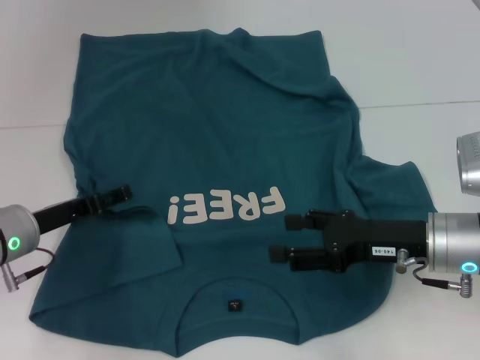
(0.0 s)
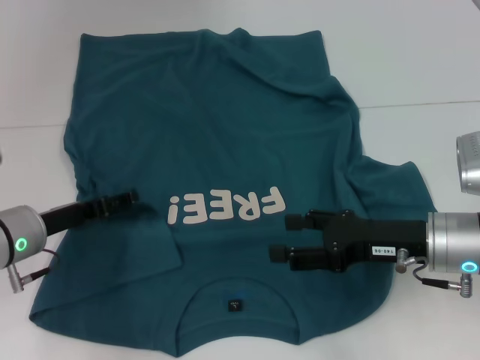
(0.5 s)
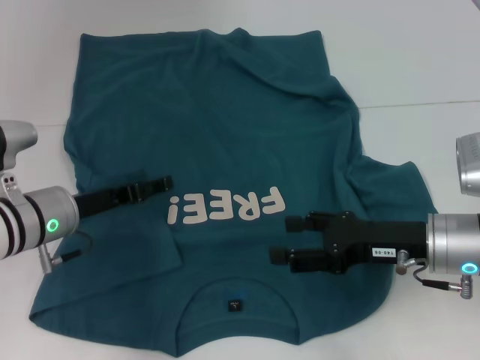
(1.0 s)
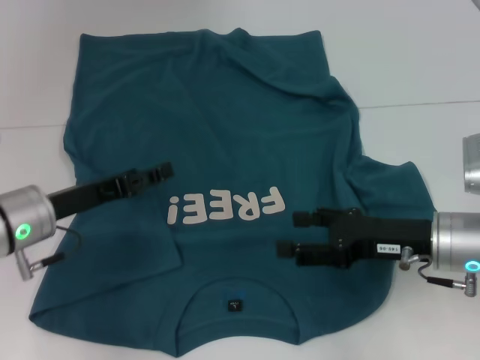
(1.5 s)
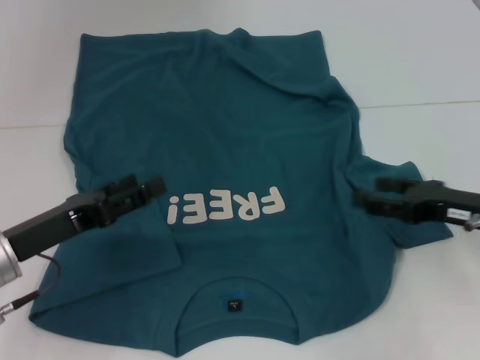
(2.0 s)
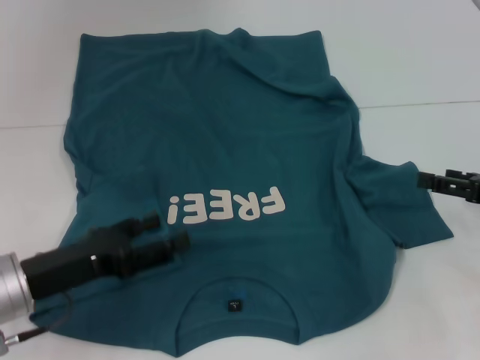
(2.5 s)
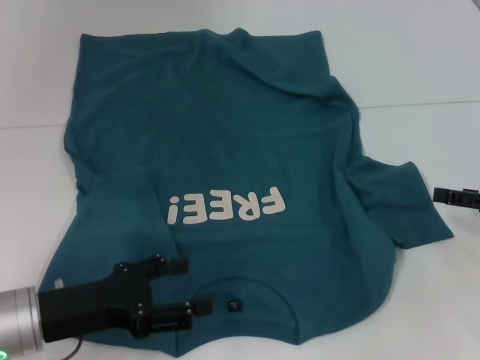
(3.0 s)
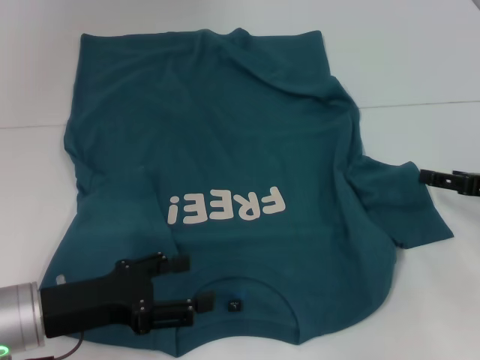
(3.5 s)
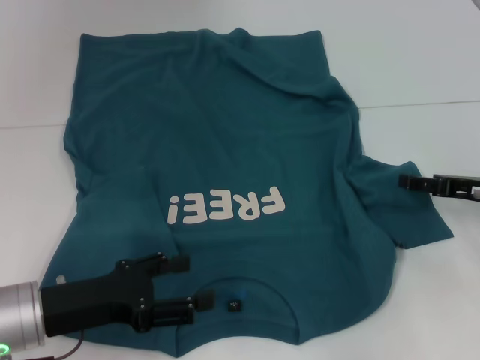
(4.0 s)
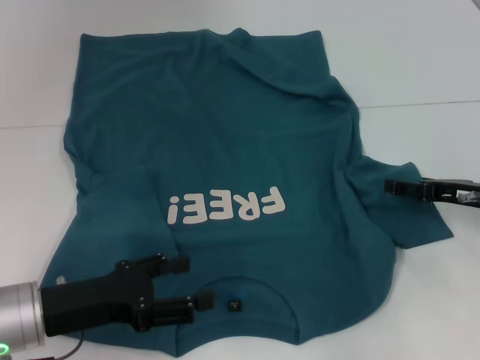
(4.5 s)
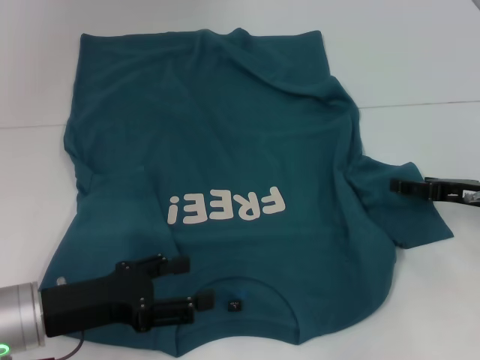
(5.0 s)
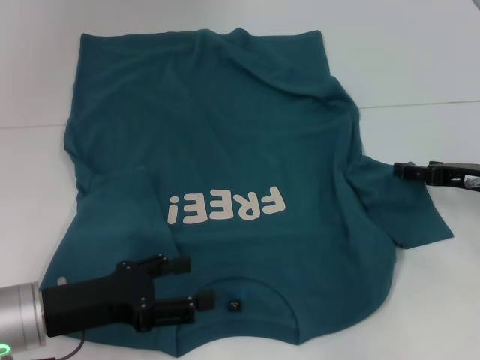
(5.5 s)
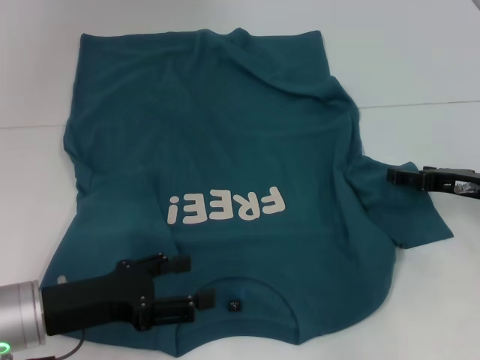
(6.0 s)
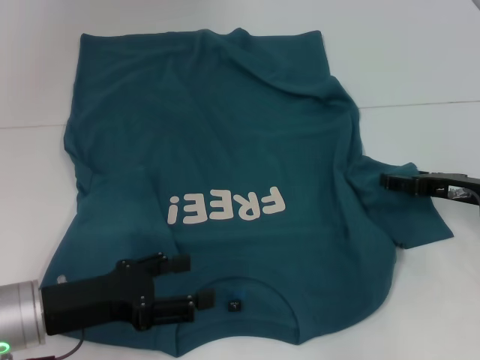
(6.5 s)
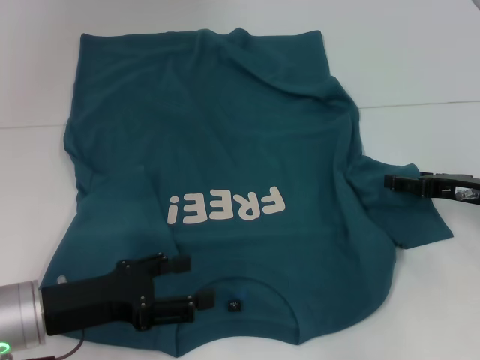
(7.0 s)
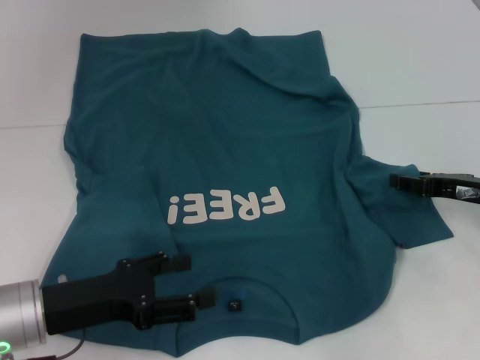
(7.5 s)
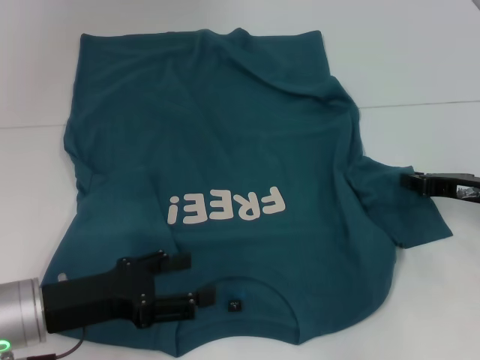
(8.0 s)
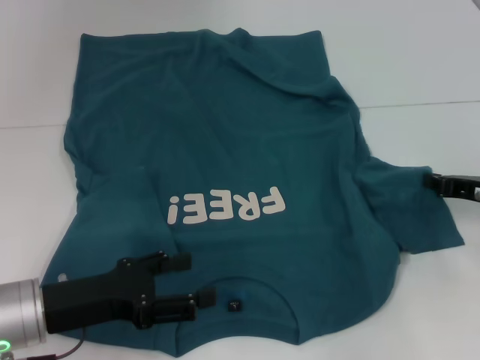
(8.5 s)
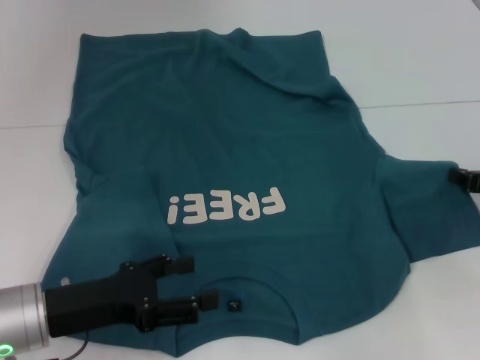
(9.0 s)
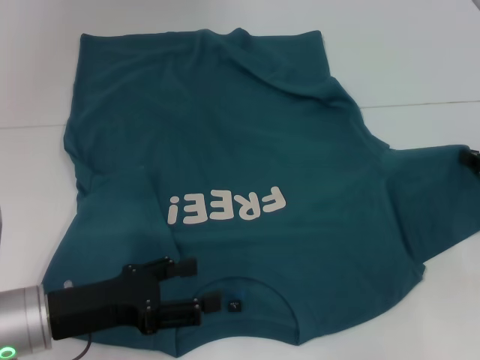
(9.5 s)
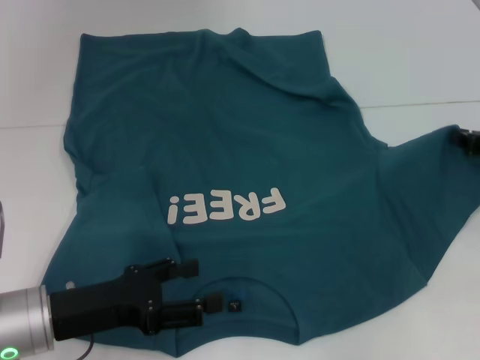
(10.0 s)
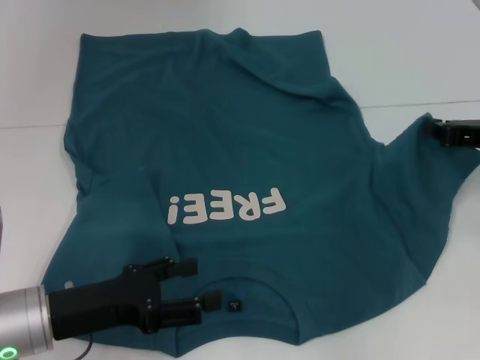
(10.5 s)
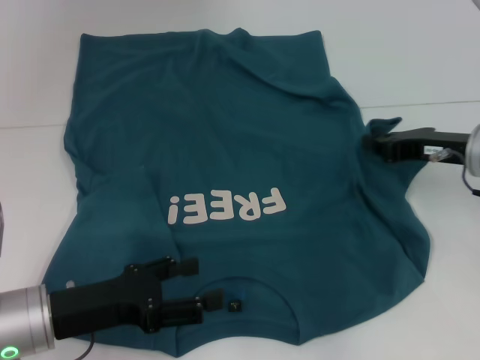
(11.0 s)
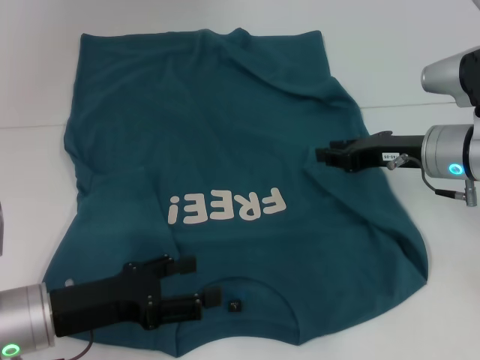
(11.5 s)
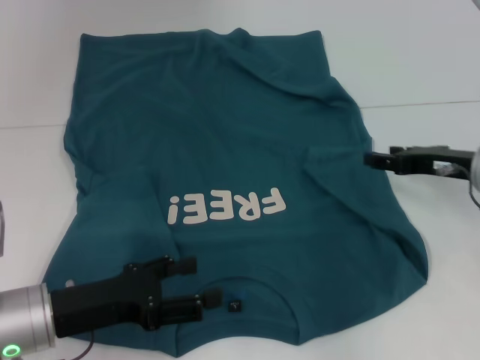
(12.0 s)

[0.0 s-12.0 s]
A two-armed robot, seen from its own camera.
0.0 to 2.0 s: The left gripper is displaced backward by about 5 cm. Meanwhile the right gripper goes approximately 10 cm to the right.
4.0 to 6.0 s: The grippers move only a little.
6.0 to 8.0 s: The right gripper closes its fingers.
8.0 to 10.0 s: The right gripper ends up approximately 5 cm from where it was.
10.0 to 12.0 s: The right gripper moves to the left, some 5 cm, and opens.

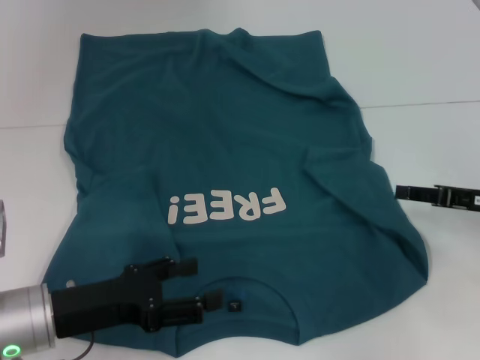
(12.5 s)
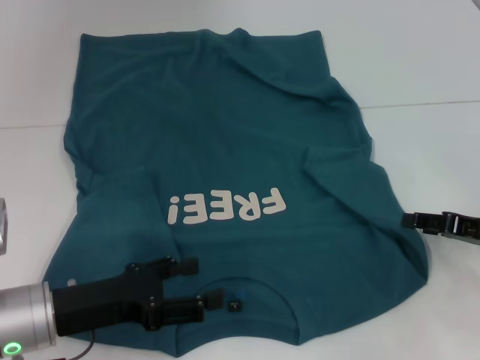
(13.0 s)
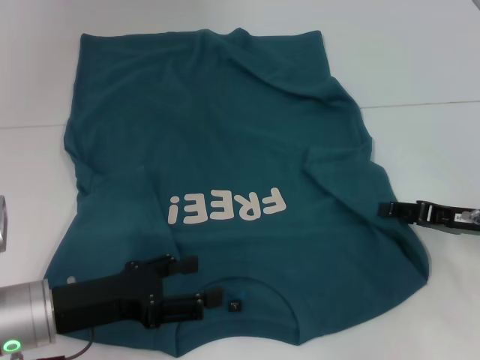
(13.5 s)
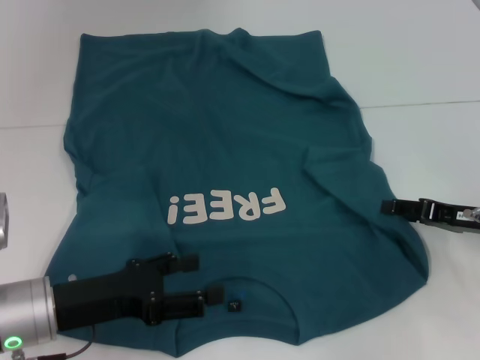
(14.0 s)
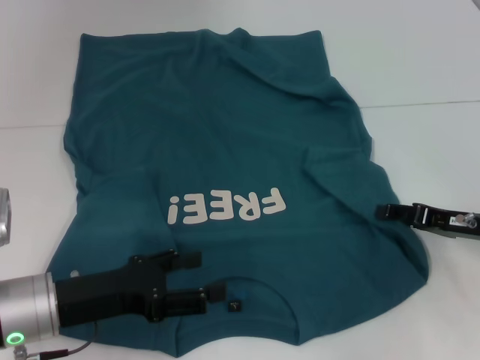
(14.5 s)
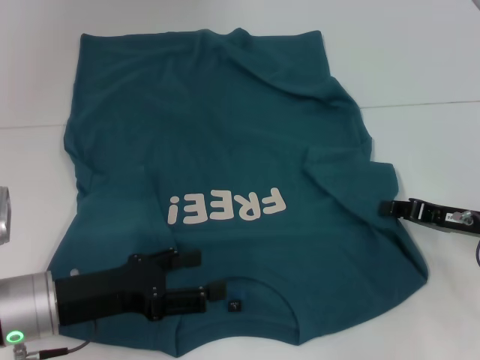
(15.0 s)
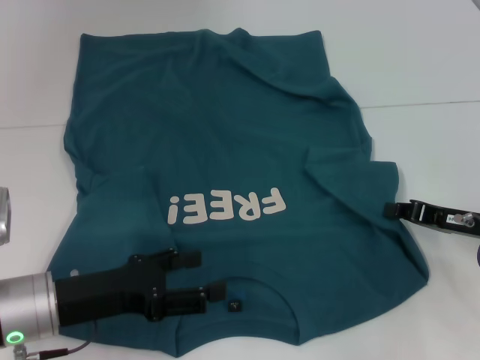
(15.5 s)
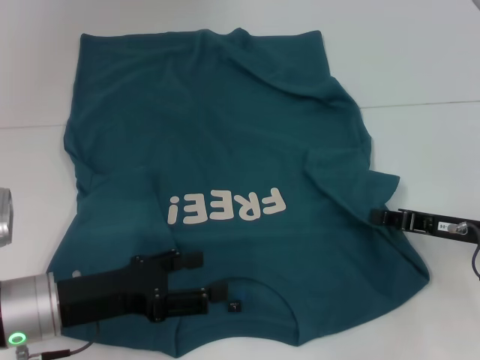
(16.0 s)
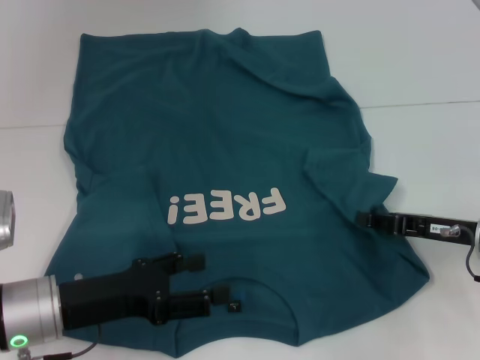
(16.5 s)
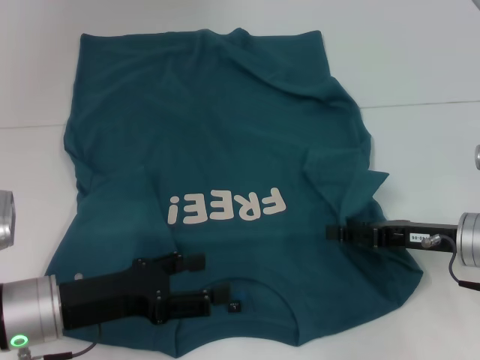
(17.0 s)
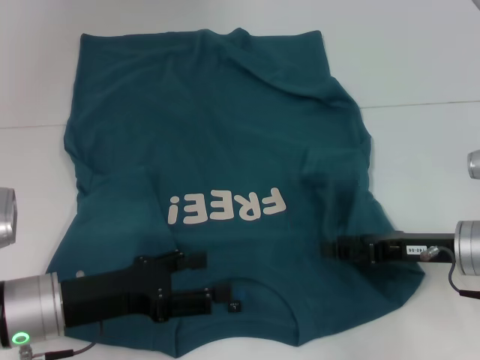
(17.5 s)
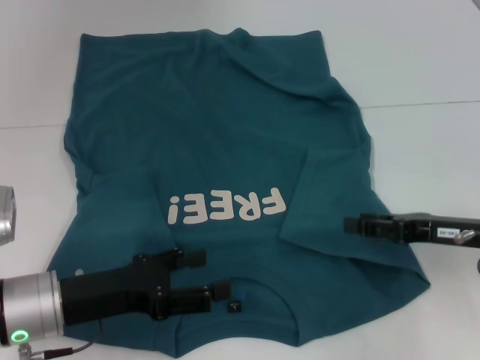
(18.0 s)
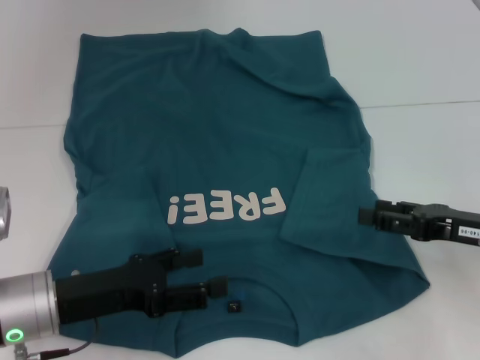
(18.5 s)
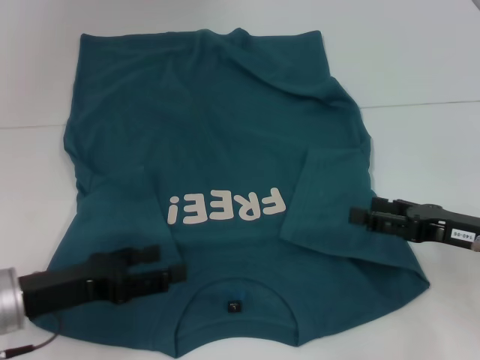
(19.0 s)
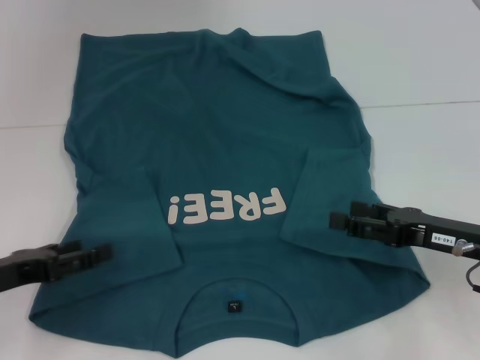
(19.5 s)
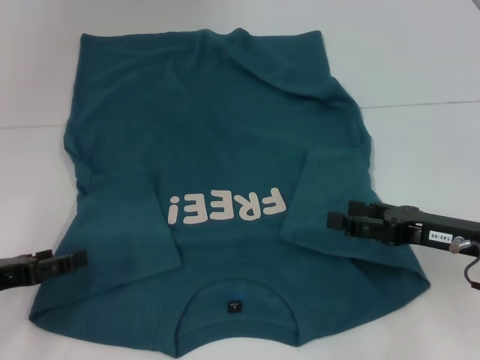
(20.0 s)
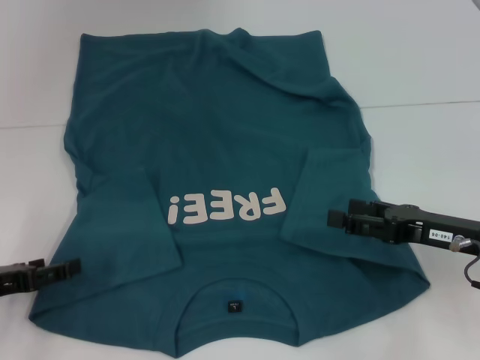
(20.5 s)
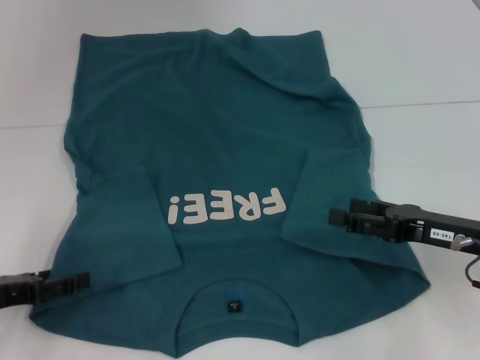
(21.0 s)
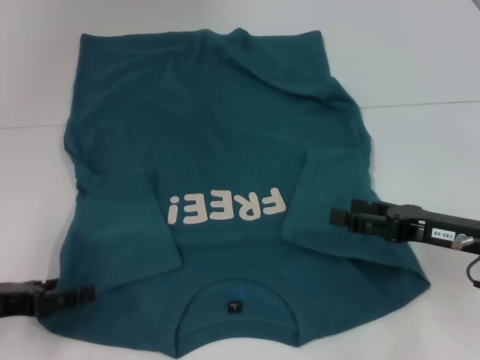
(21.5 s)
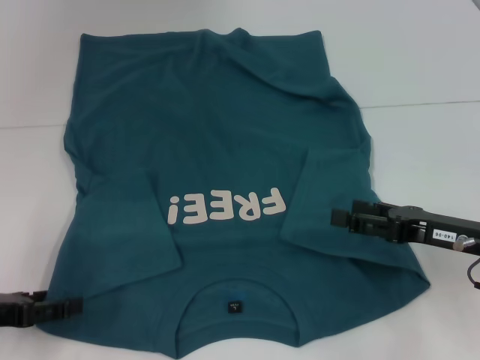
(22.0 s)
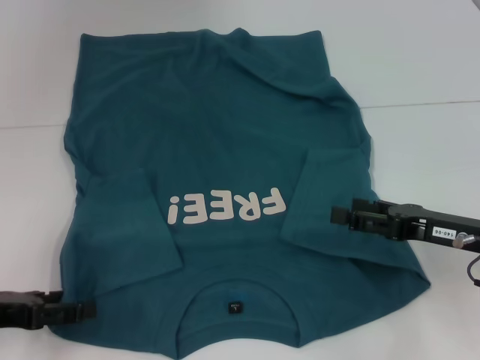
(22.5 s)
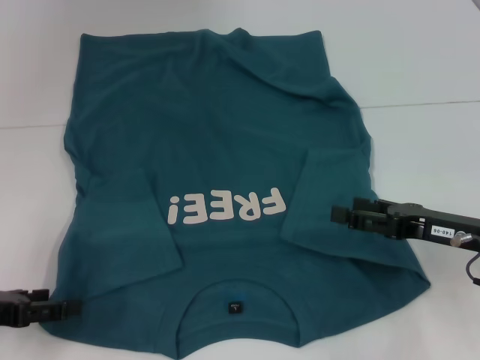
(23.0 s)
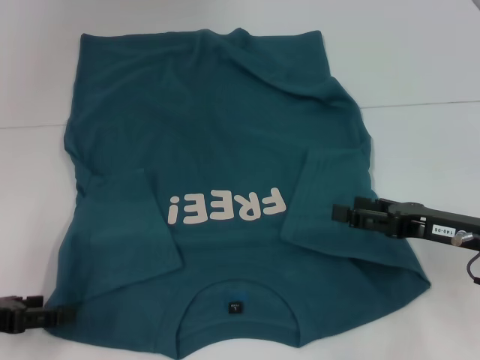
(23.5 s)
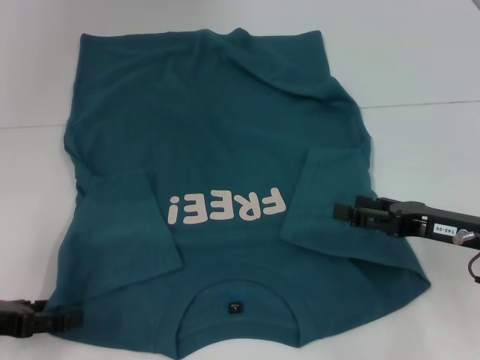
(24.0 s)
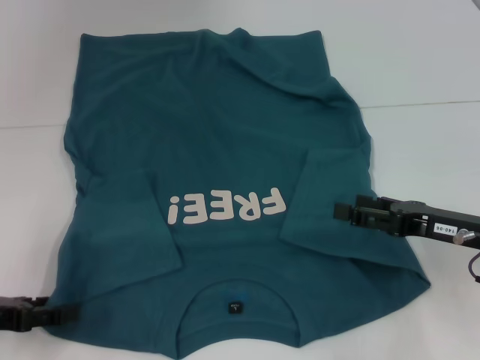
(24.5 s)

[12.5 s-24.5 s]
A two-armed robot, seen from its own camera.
Step, 12.5 to 18.5 s: Fold the bottom right sleeve to the right.
12.5 to 14.5 s: The grippers move only a little.
14.5 to 16.5 s: The right gripper closes.
16.5 to 18.5 s: The right gripper opens its fingers.
18.5 to 20.5 s: The left gripper travels to the left by roughly 10 cm.
20.5 to 24.5 s: The grippers stay close to where they were, moving slightly.

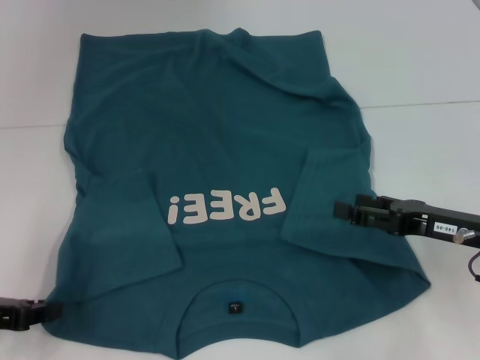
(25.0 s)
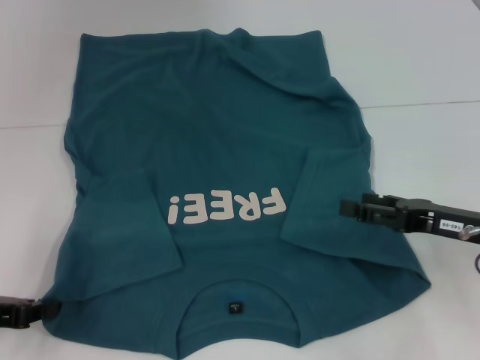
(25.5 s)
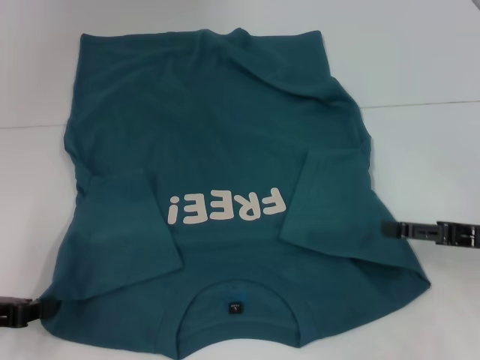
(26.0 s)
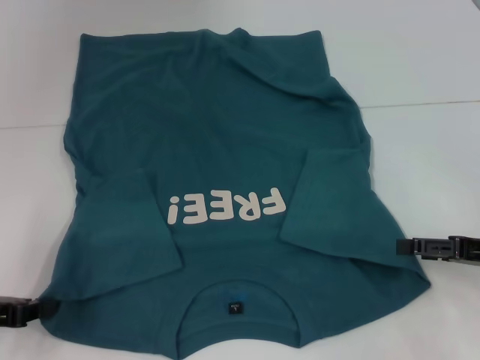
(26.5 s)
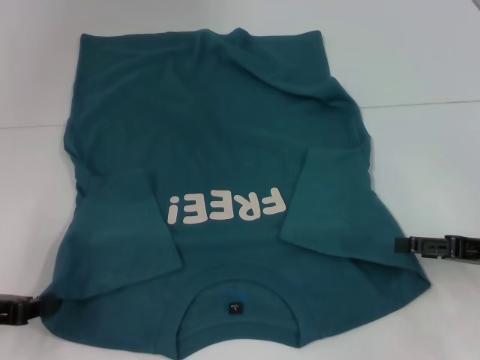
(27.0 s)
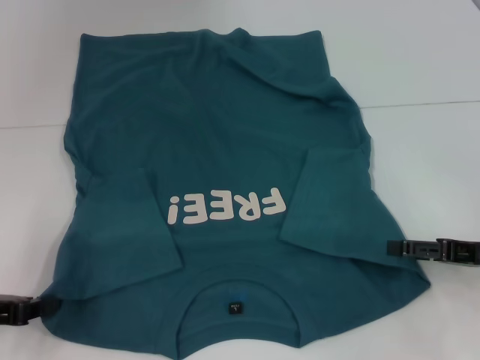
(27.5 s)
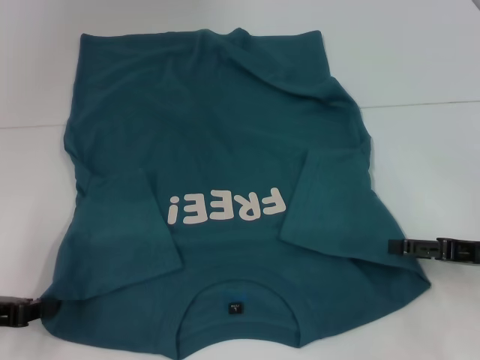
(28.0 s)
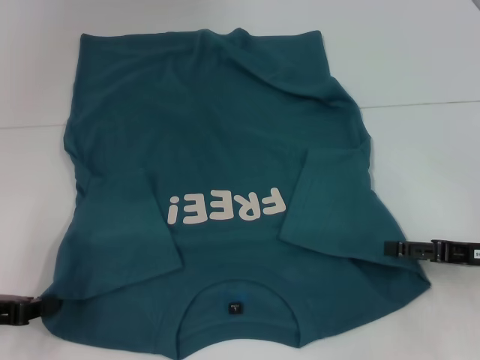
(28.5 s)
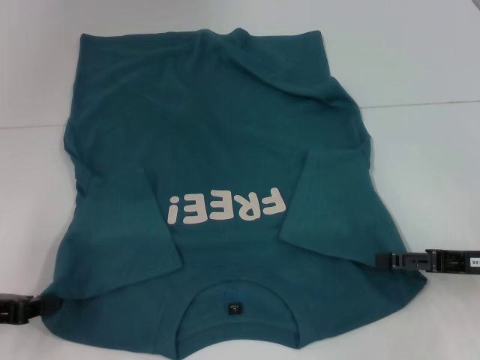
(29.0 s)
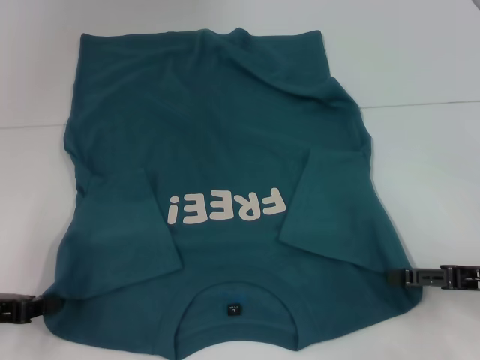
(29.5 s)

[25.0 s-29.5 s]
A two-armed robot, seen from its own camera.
25.0 to 27.0 s: The left gripper closes its fingers, while the right gripper heads to the right, covering approximately 5 cm.
27.0 to 29.5 s: The grippers move only a little.
